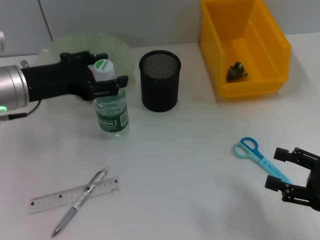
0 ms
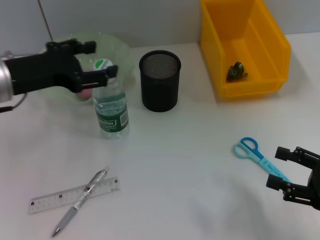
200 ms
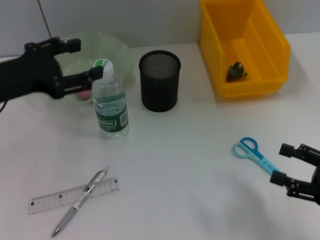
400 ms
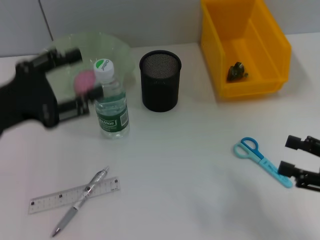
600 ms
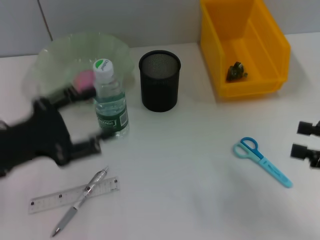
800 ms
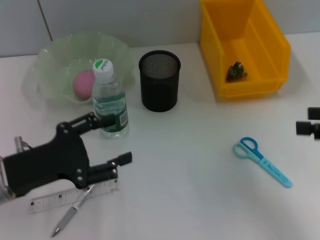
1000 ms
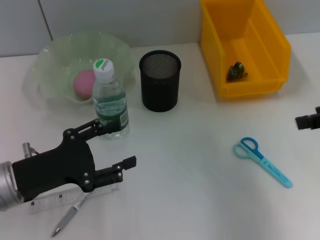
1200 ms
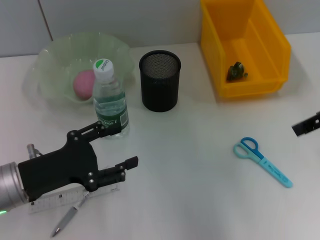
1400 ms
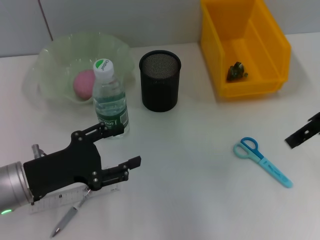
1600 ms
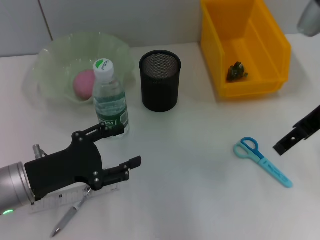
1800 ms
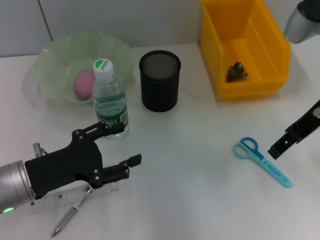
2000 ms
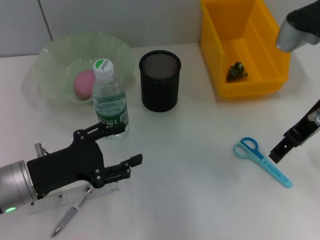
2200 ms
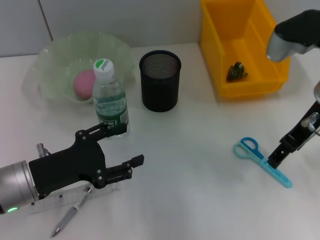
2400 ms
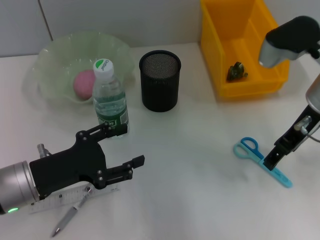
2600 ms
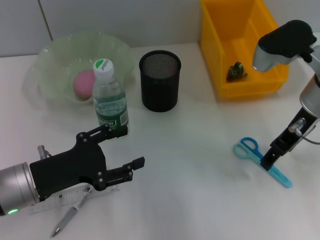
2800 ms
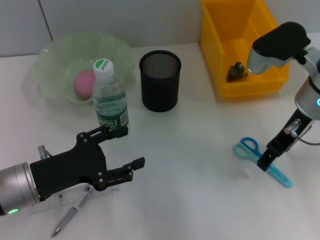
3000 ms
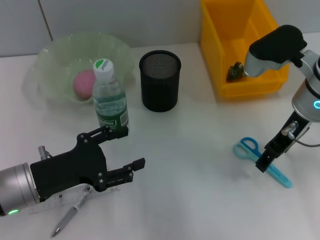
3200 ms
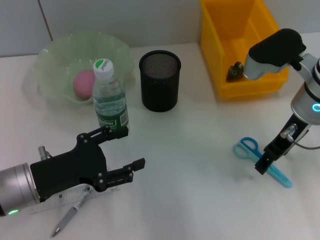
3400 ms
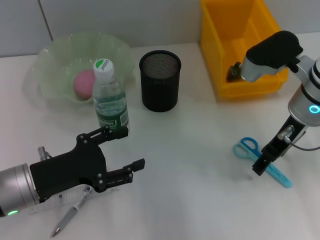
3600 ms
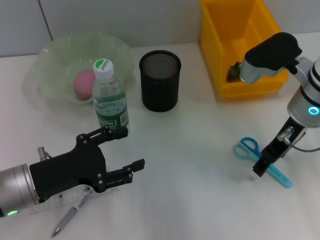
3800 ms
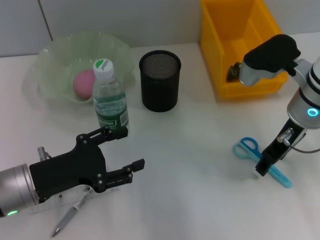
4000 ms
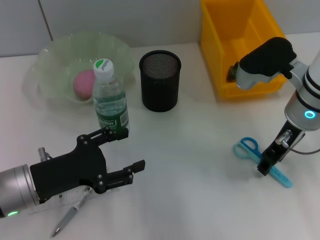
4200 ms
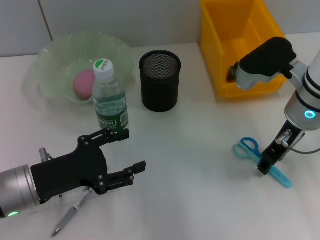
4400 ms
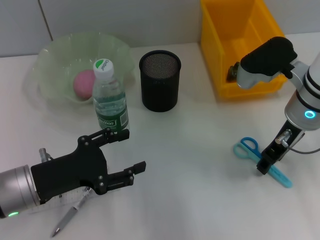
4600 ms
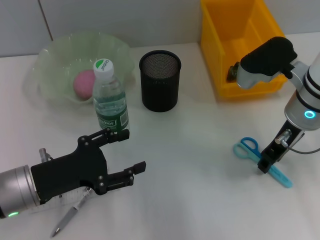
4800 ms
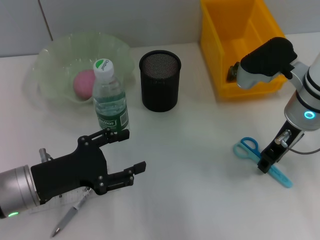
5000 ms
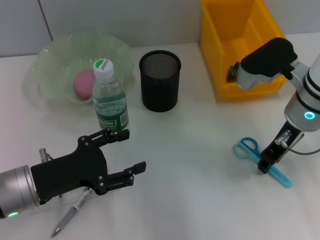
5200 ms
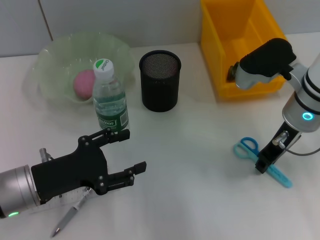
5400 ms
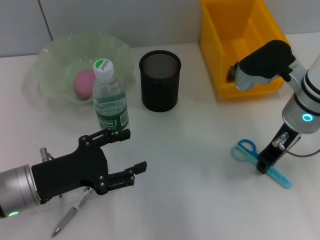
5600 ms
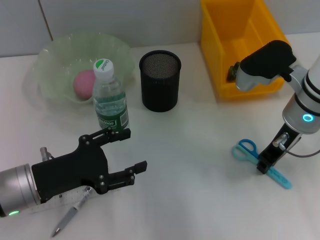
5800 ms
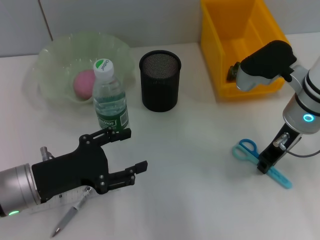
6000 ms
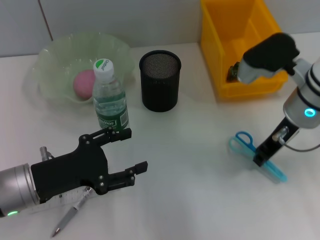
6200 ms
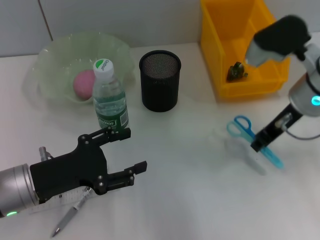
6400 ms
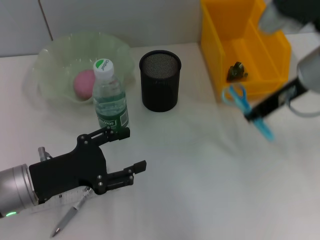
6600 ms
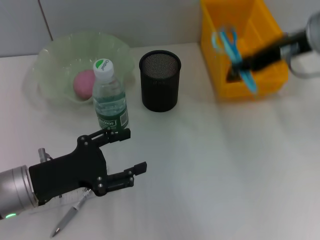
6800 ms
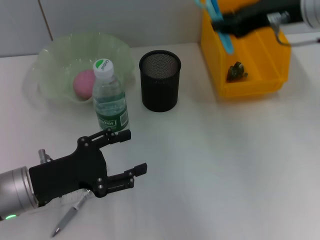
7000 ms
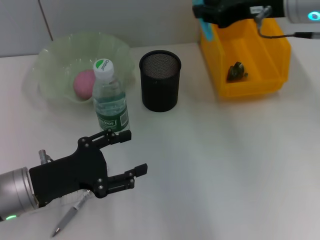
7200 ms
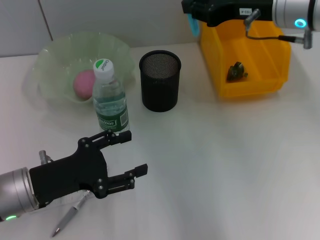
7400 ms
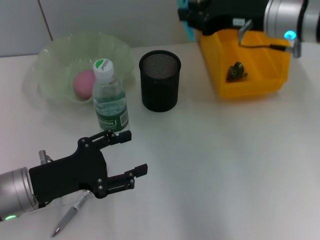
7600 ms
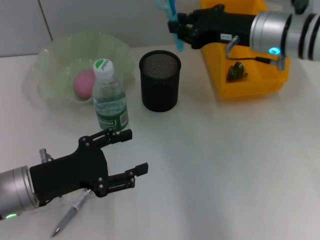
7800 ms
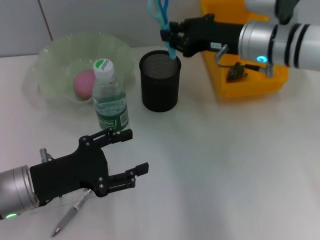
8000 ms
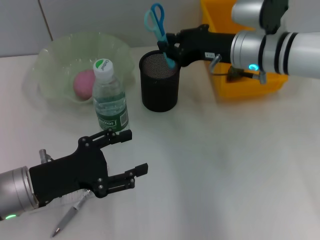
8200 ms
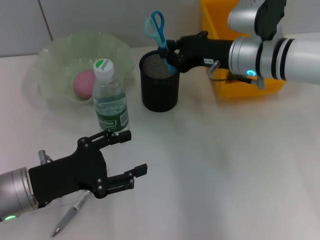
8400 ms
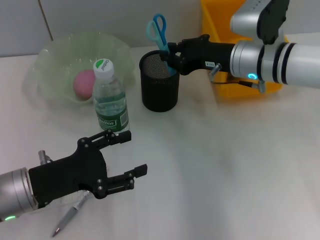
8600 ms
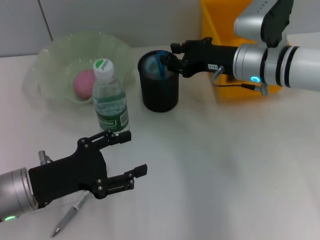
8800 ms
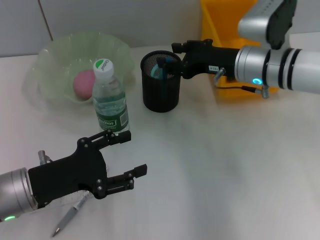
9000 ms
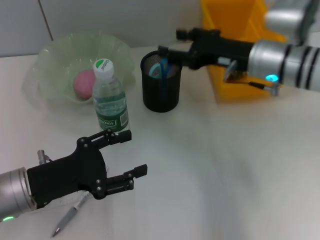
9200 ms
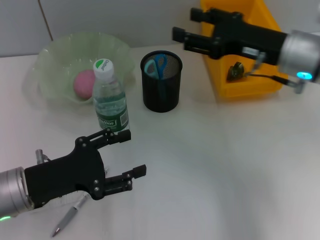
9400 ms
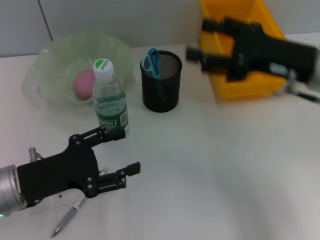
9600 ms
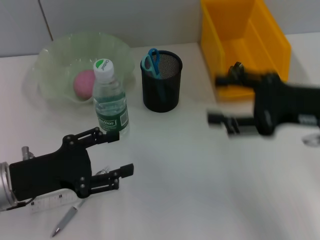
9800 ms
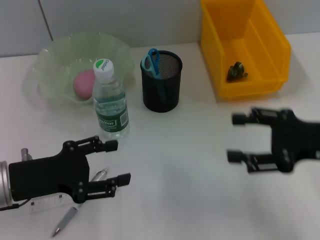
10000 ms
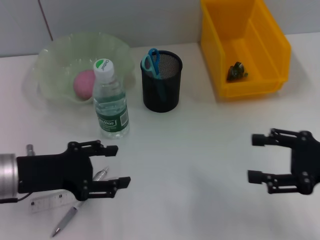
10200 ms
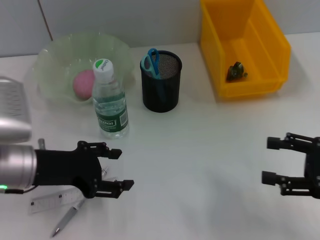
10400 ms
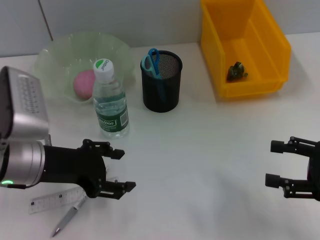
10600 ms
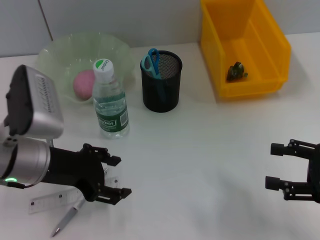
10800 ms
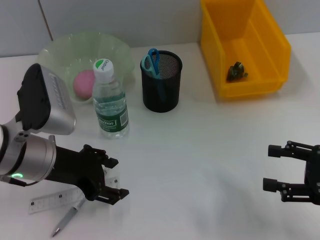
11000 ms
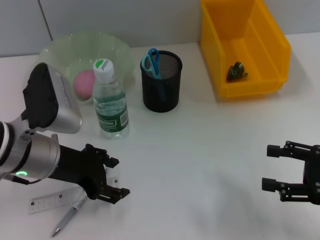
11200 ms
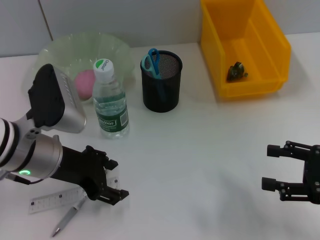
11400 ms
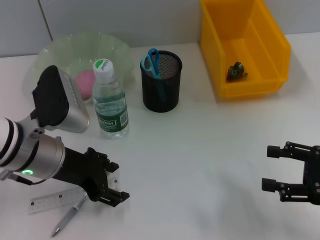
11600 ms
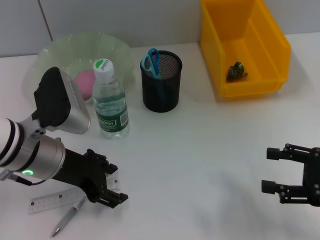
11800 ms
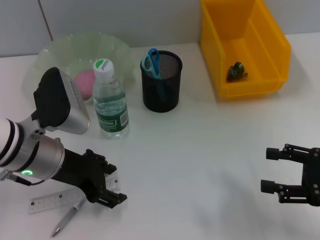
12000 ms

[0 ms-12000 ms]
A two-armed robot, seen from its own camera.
Step, 200 ms to 5800 ms: Grab the blue scissors with the right hand.
Step, 6000 ms to 9000 ms: Place the blue scissors into the pen holder with the right hand.
0 ms to 1600 ms: The right gripper is displaced upward, forward and to the left by approximately 25 cm. Meanwhile the left gripper travels backward and downward by approximately 15 cm.
1600 ms to 3000 ms: The right gripper is displaced downward and to the left by some 10 cm.
3000 ms to 4400 ms: There are only small adjustments of the grippers.
4400 ms to 6000 ms: The right gripper closes up.
6000 ms to 7600 ms: The right gripper travels upward by roughly 5 cm.
7600 ms to 9000 ms: The right gripper moves downward, roughly 10 cm.
9000 ms to 10400 ms: The right gripper is displaced backward and to the right by approximately 25 cm, and opens its fingers. The left gripper ends up some 5 cm from where it was.

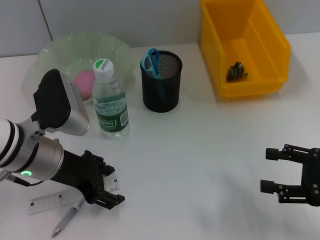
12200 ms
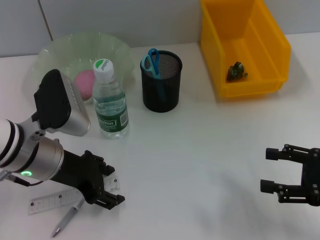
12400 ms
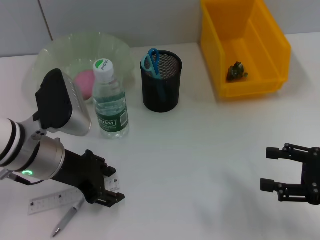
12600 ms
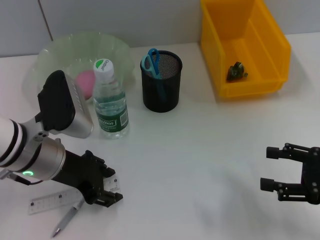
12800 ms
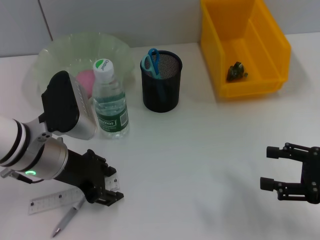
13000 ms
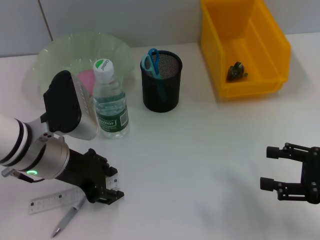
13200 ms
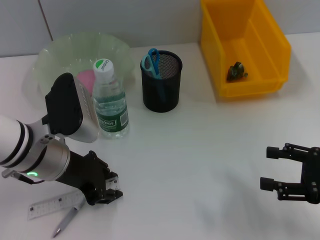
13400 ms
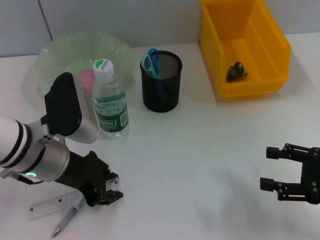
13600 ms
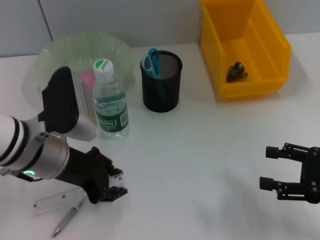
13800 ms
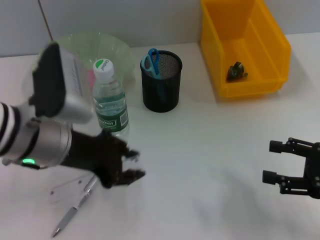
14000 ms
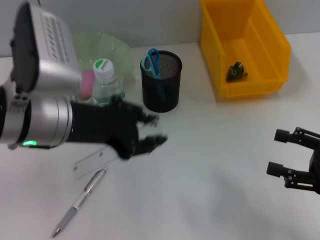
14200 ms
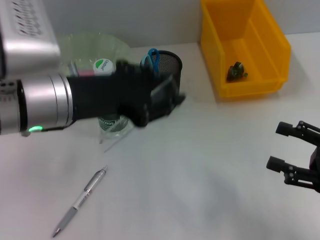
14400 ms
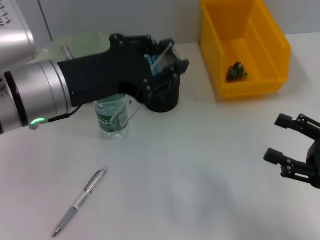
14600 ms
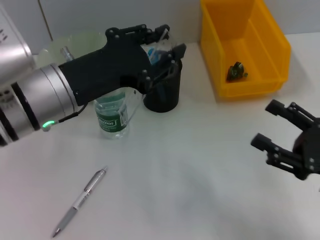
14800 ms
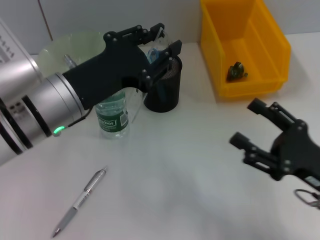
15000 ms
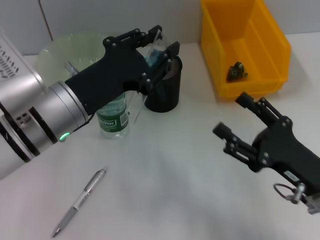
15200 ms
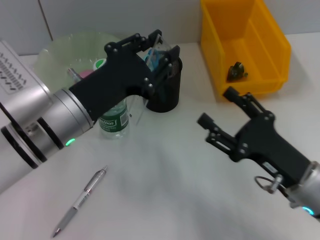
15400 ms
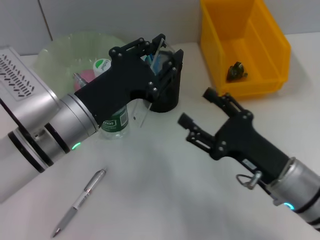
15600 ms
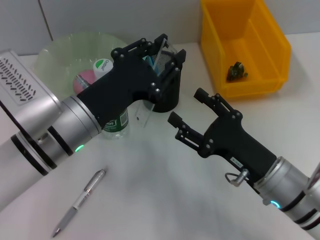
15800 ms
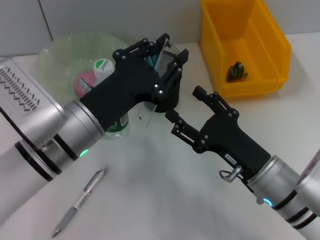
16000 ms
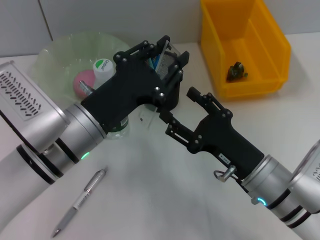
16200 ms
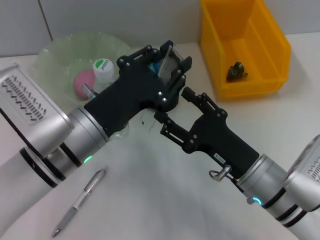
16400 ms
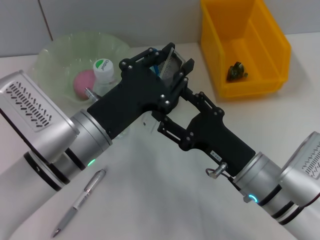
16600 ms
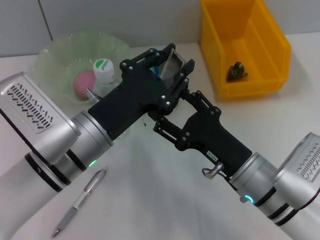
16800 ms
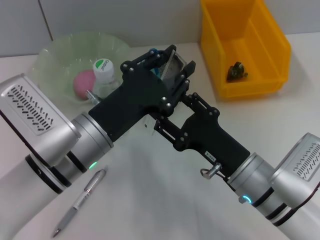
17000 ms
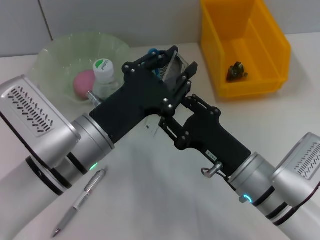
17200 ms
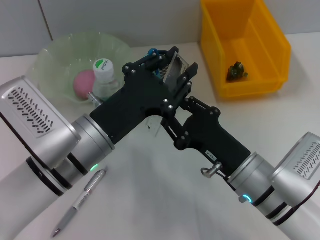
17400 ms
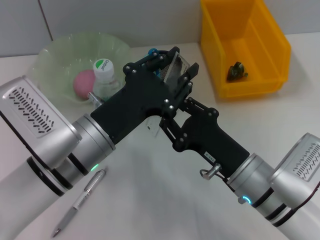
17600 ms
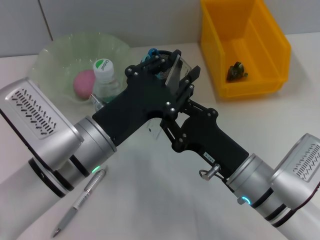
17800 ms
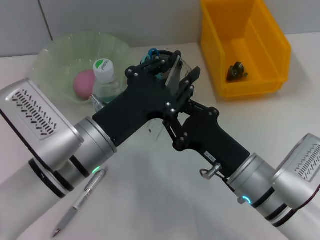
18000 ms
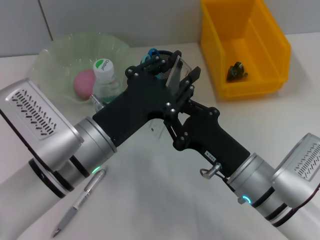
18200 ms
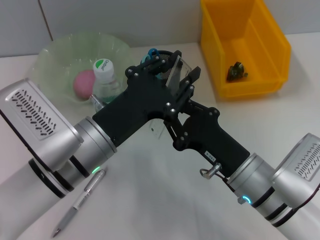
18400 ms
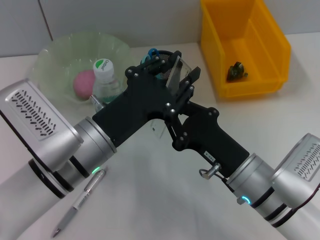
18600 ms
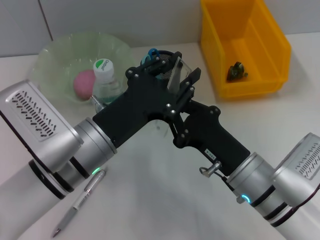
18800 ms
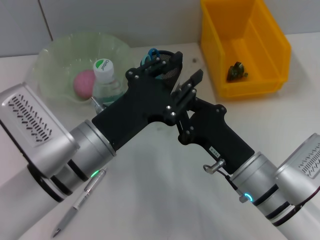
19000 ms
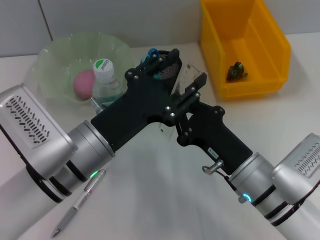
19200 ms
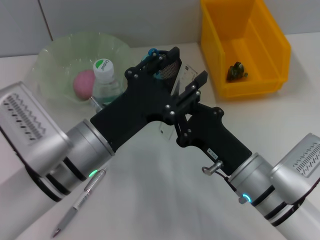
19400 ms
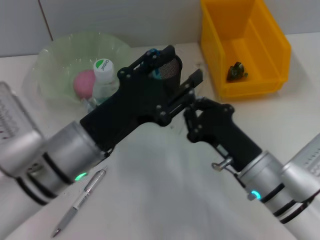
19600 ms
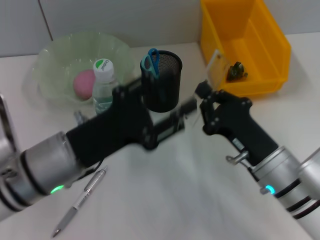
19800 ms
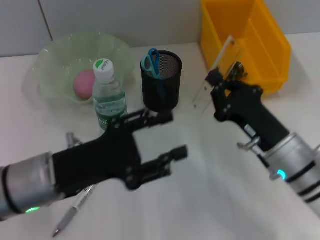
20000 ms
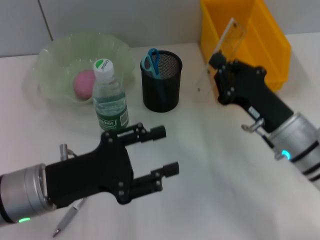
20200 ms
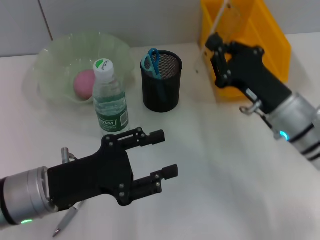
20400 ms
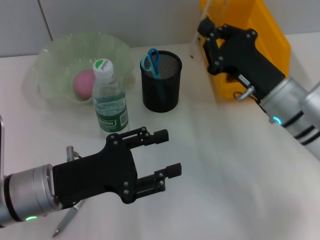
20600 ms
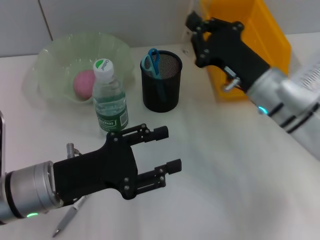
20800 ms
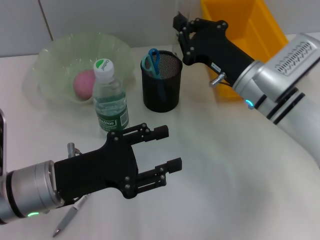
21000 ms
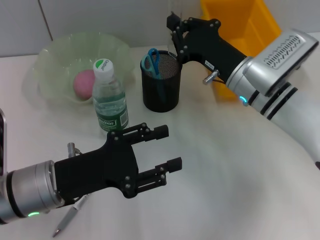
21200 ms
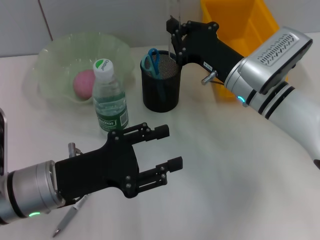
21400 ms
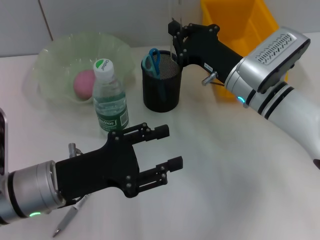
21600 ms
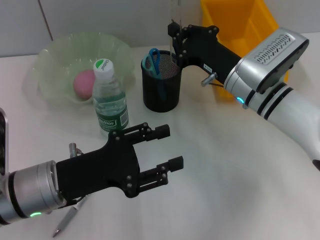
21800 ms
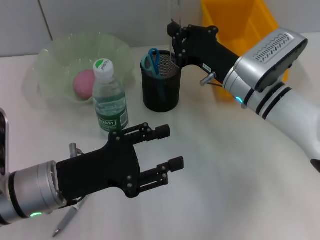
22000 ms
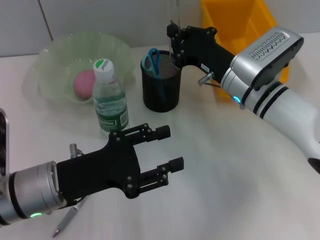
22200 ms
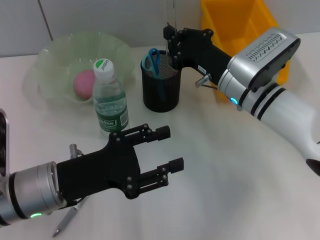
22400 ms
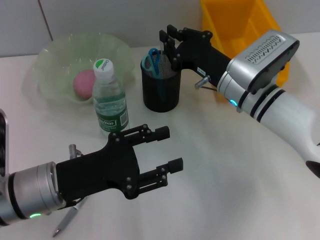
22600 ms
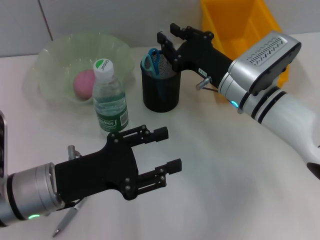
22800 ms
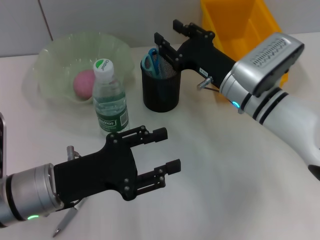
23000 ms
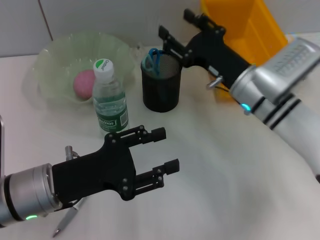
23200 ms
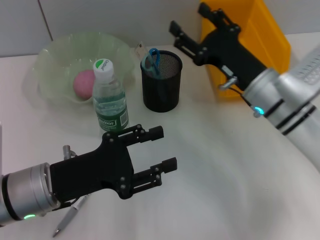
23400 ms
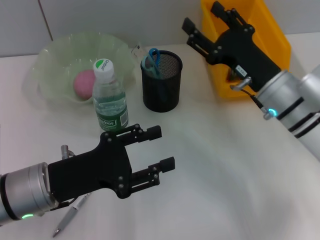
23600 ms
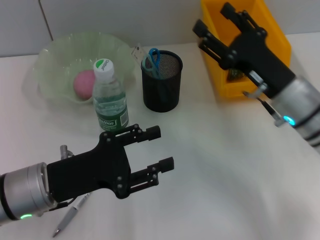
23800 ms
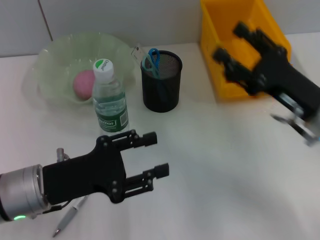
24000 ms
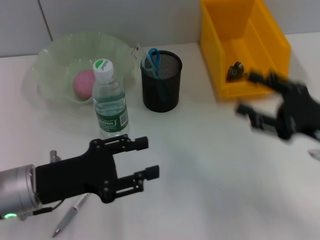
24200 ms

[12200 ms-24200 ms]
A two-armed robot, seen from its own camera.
Step, 13600 ms to 19200 ms: Pass the ruler from the left hand to the right hand.
Step, 19600 ms to 22800 ms: Place the ruler into the pen holder with the right hand.
12200 ms to 13800 ms: The left gripper closes up.
13800 ms to 15200 ms: The right gripper travels to the left by roughly 10 cm, while the left gripper travels upward and back again, about 10 cm each way.
15200 ms to 16600 ms: The right gripper travels to the left by about 10 cm.
16600 ms to 18200 ms: The right gripper closes up.
19800 ms to 21200 ms: The right gripper goes some 15 cm forward and upward.
21200 ms to 22600 ms: There are only small adjustments of the grippers.
22600 ms to 24200 ms: The right gripper moves to the right and backward, about 20 cm, and opens up.
